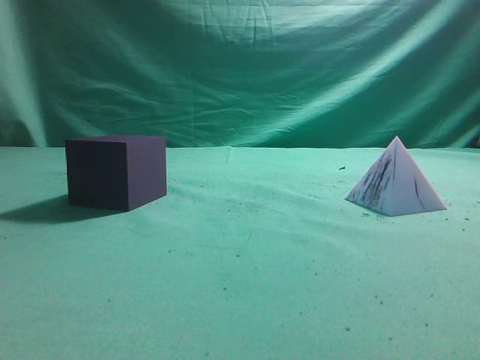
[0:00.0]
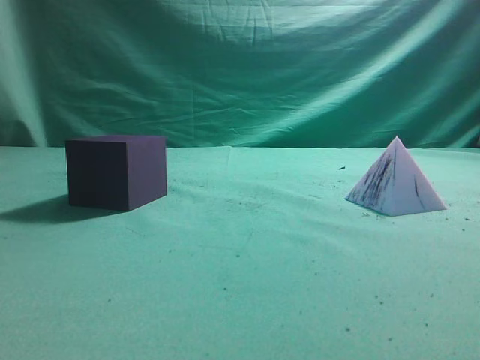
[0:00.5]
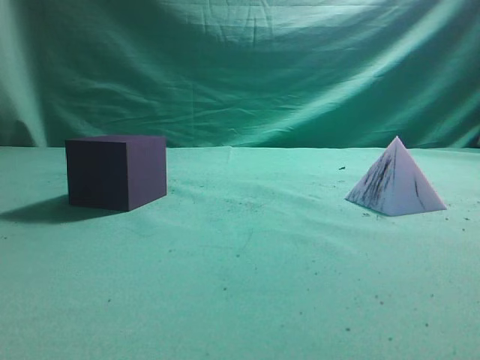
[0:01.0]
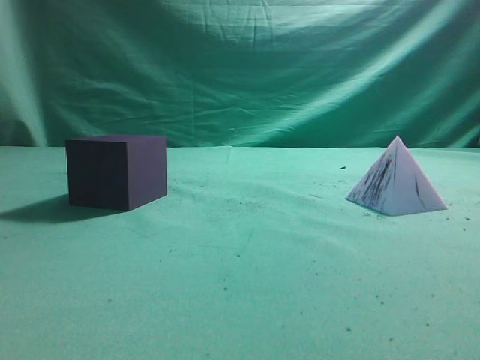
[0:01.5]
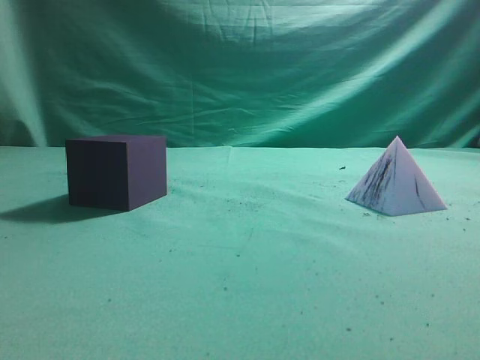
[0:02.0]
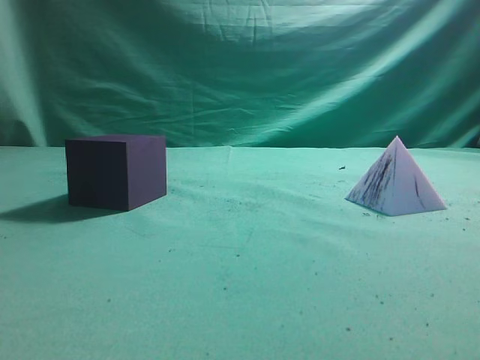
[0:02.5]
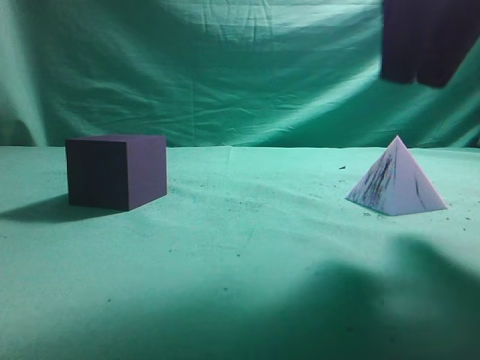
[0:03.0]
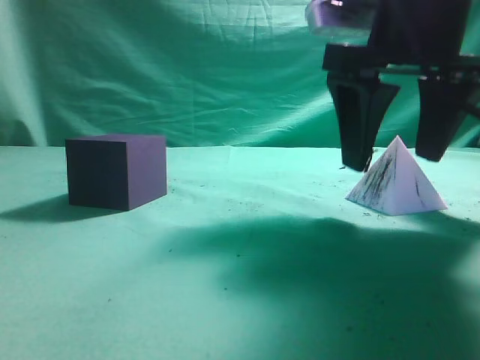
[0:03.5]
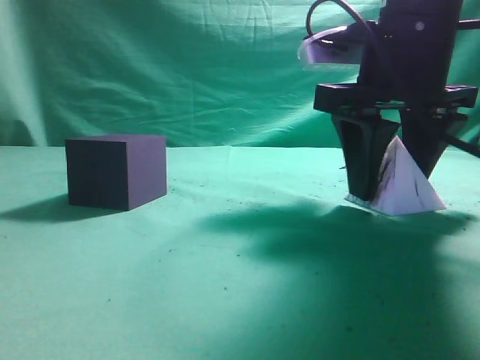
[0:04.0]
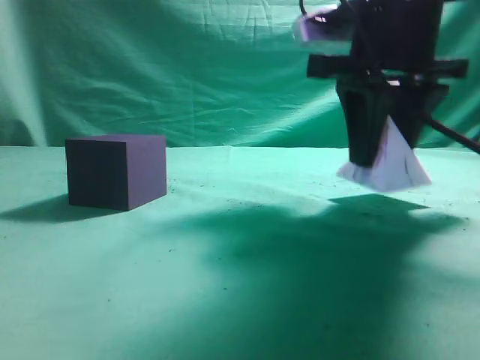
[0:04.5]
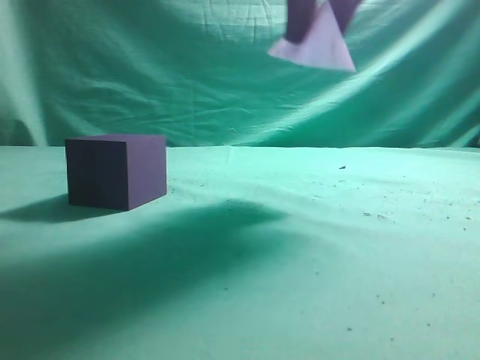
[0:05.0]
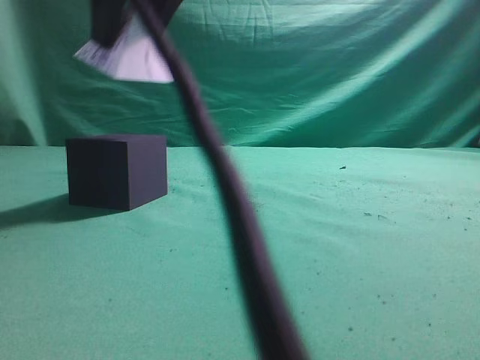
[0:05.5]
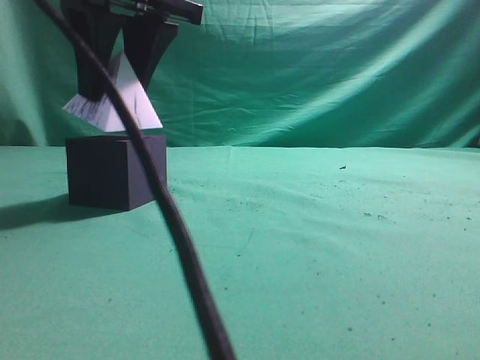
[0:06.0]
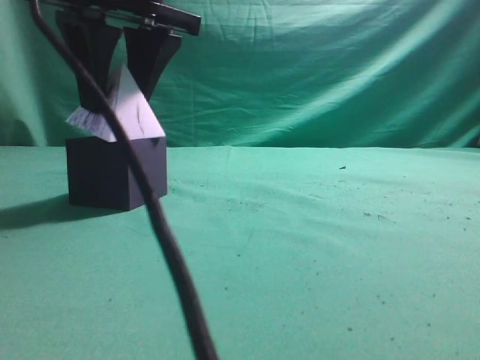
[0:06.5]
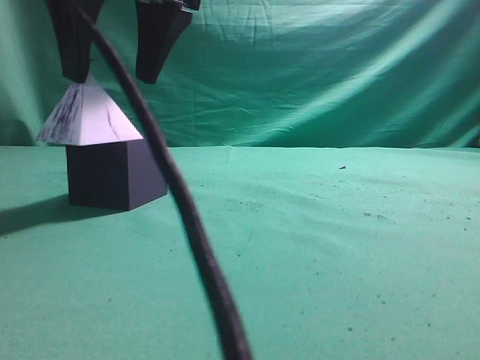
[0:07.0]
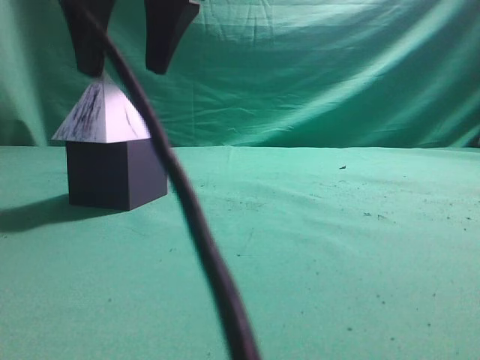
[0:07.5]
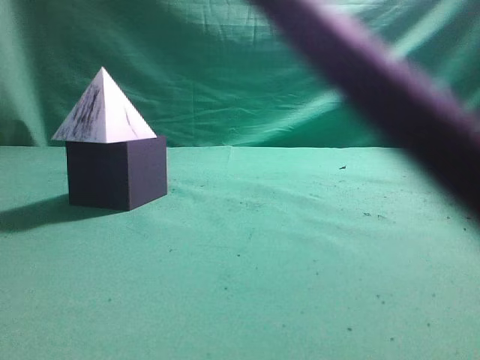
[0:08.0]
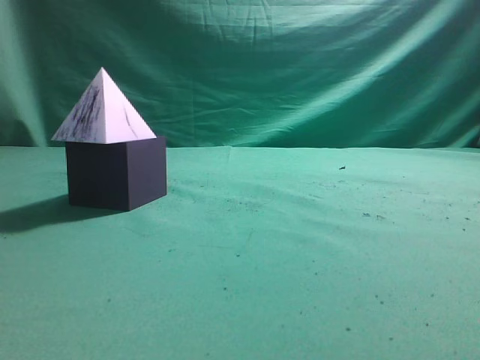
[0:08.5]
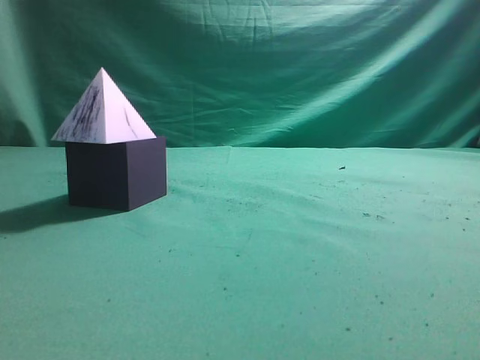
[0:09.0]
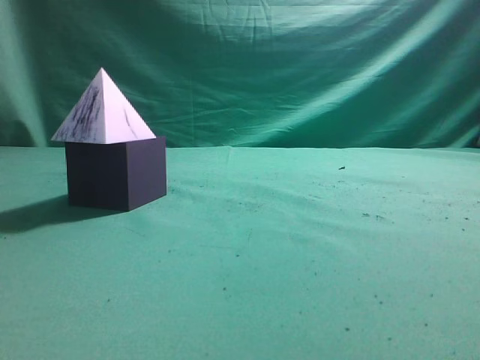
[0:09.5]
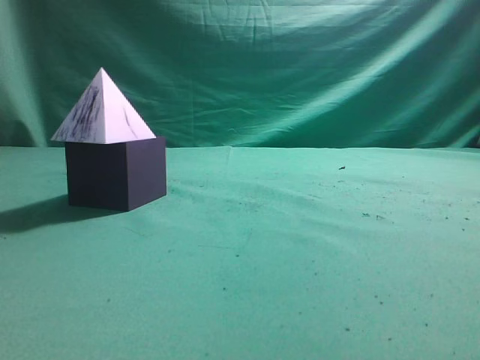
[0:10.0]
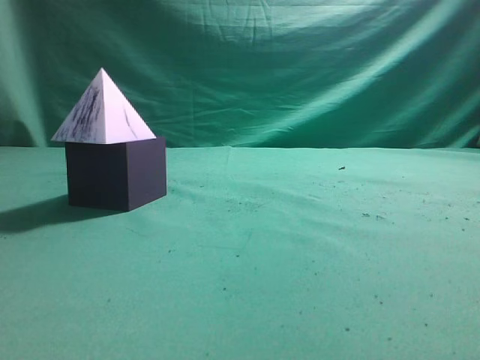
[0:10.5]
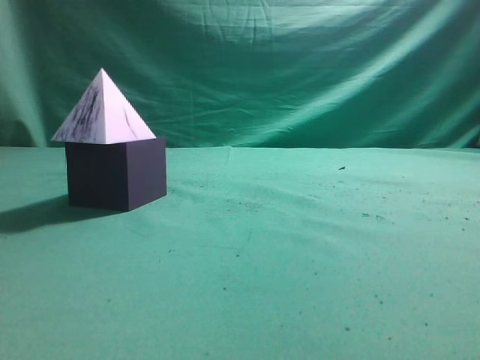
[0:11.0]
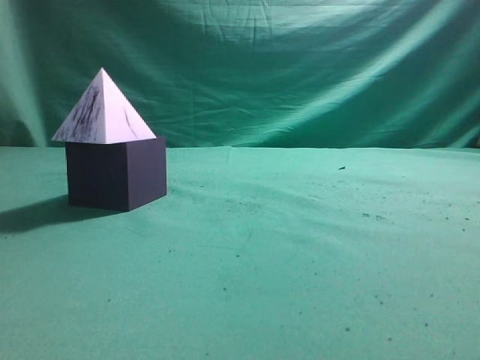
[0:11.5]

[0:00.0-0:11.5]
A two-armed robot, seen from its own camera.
Task of the whole recording: pick up the square pyramid from the table and place it on the cube block.
Step, 0:00.0 to 0:04.5: Grasp the triangular block.
Step, 0:05.0 to 0:07.5: Place the block onto the cube-shaped block.
0:02.0 to 0:04.0: The right gripper is displaced forward, to the left and downward by about 30 cm, and opens its fingers.
0:04.0 to 0:06.0: The right gripper travels to the left and upward by approximately 20 cm.
0:06.0 to 0:07.5: The grippers make only small movements.
0:07.5 to 0:09.5: The right gripper goes approximately 40 cm to the right, backward and upward, and closes up.
